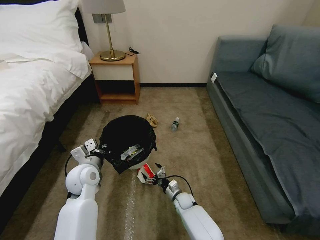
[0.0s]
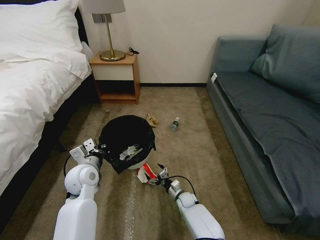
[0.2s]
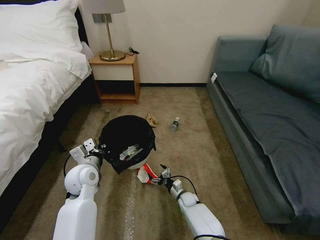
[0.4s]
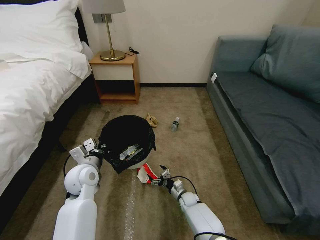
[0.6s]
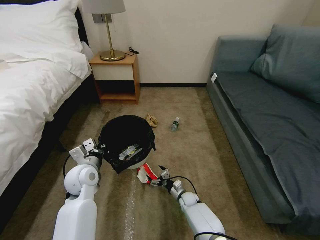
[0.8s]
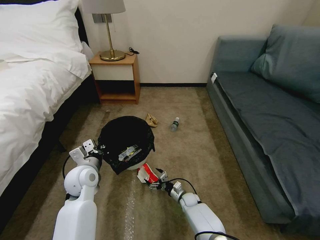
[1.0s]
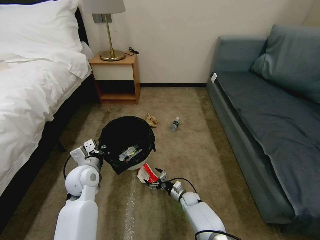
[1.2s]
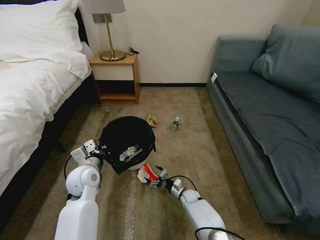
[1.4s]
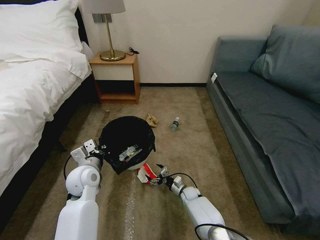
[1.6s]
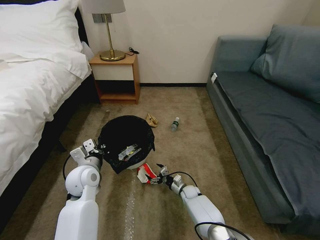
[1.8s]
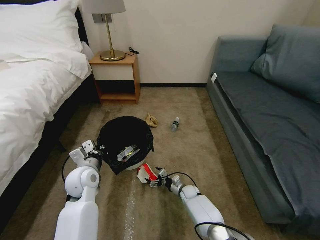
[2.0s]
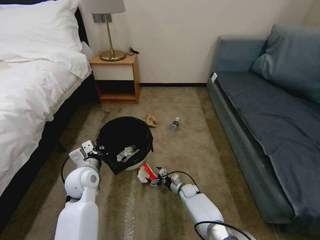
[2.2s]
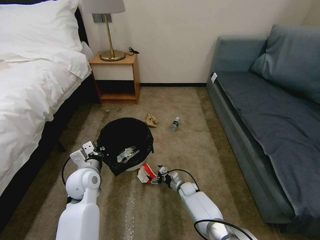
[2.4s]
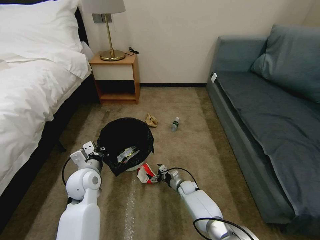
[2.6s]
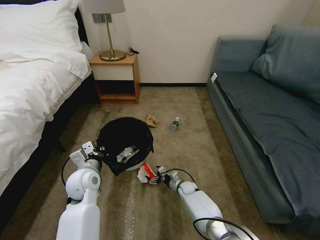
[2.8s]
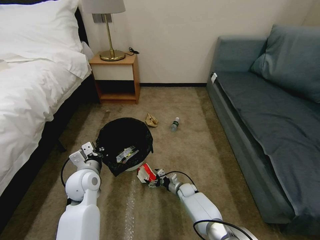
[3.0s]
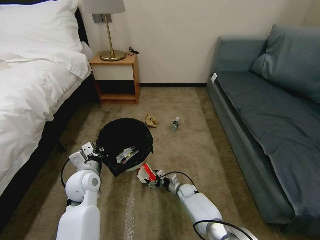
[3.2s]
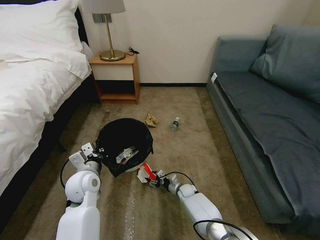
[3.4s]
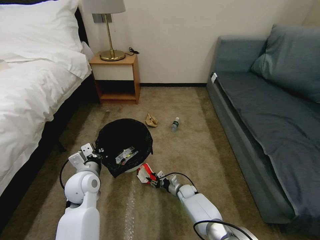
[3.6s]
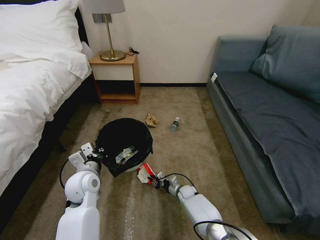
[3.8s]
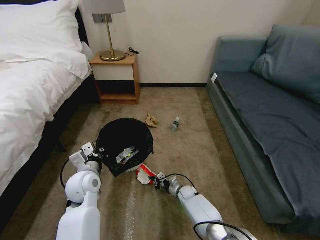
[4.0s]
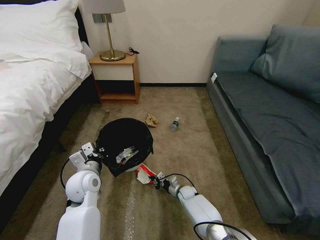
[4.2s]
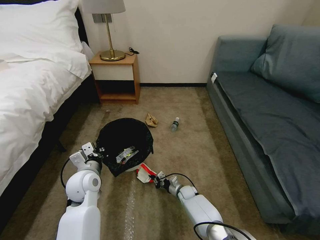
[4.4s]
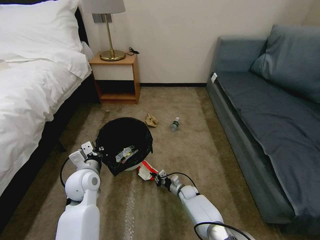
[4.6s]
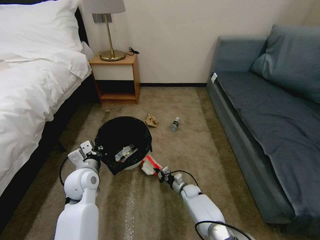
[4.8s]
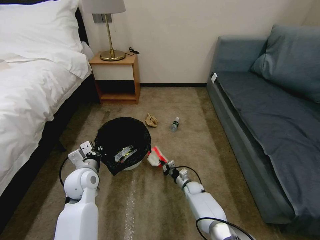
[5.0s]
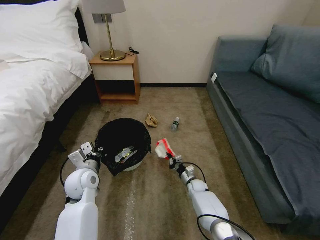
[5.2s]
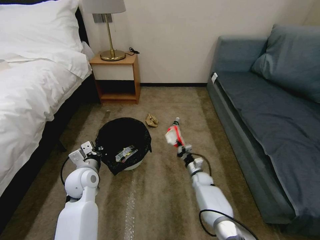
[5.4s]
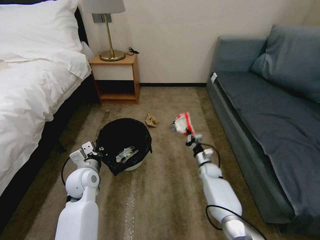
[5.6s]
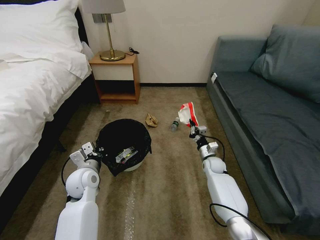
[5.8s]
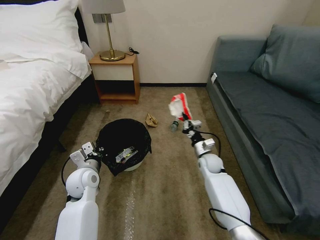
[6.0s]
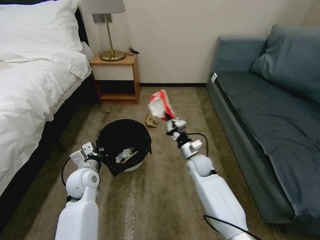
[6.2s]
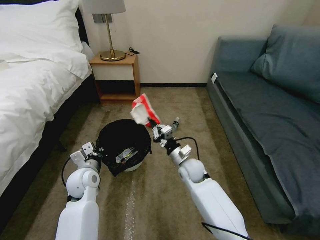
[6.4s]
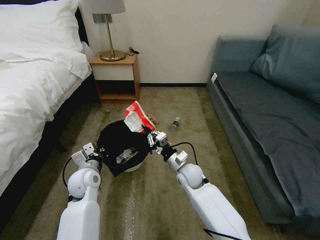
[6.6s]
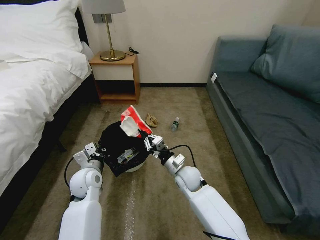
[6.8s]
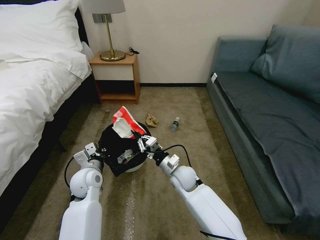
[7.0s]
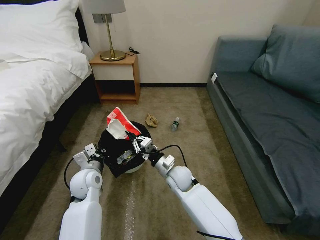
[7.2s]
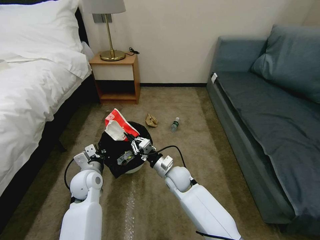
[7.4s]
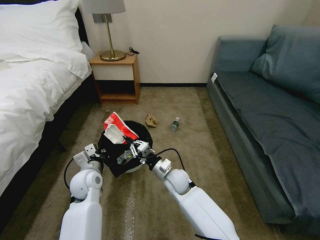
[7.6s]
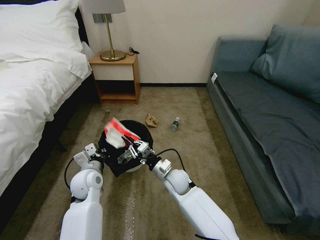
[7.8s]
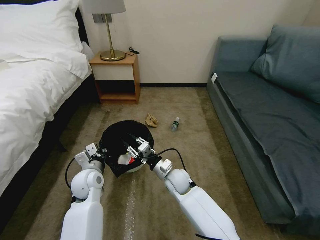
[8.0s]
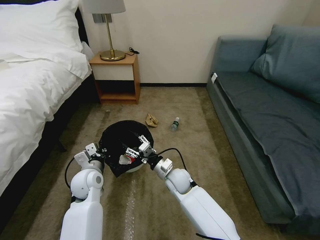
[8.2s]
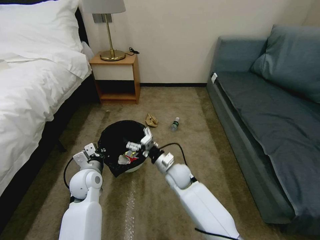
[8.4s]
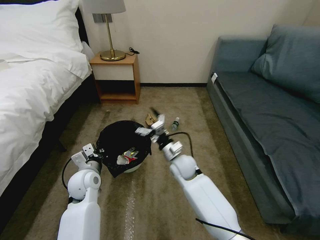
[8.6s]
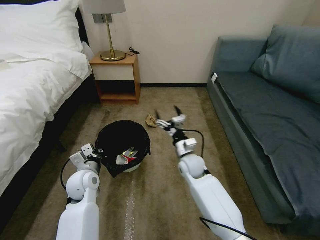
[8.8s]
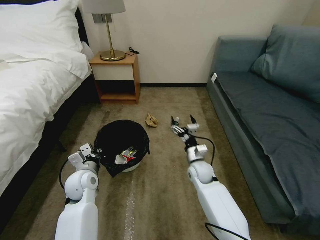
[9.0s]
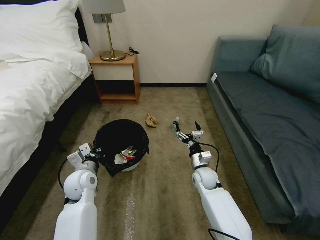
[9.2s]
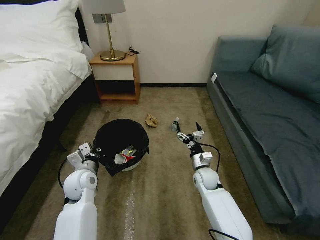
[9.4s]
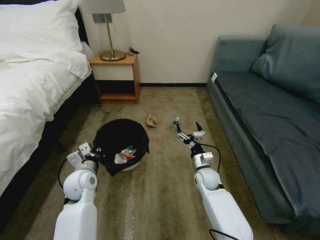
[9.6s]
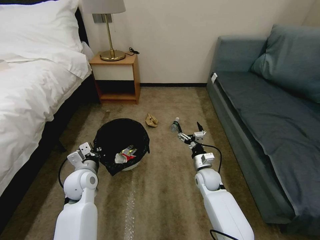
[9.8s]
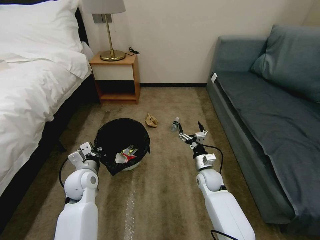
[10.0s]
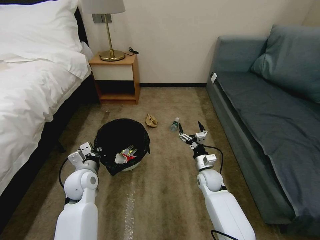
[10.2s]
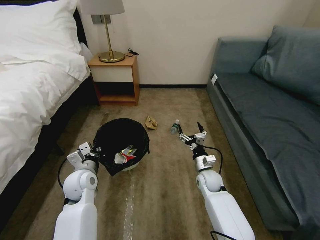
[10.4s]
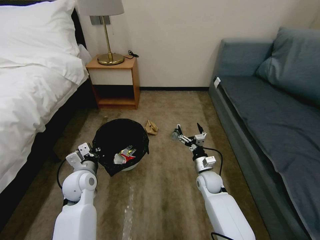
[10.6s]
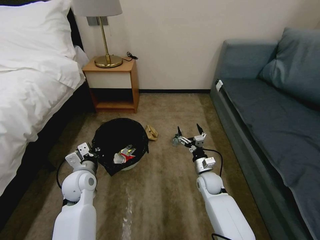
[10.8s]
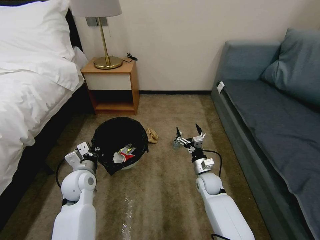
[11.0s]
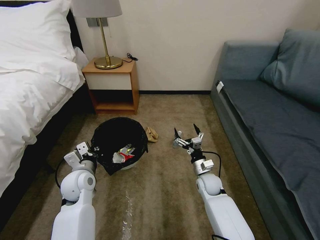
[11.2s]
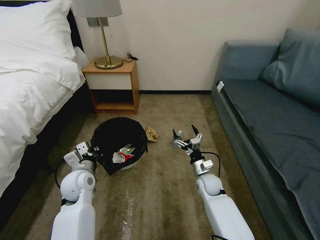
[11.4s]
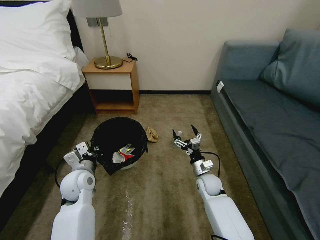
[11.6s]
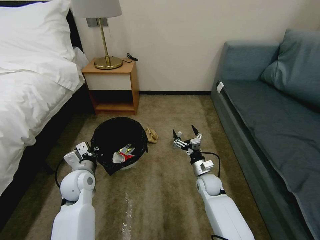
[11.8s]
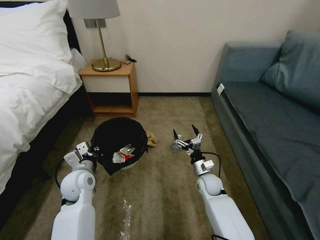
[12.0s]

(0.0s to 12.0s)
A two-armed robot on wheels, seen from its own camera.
Task of the whole recording: Pick up the trash bin, then pick up the garbage on the floor and place it into the trash bin.
0.0s - 1.6s: The right gripper shifts by approximately 5 cm.
1.6s - 3.0s: The grippers stay close to where they were, moving slightly.
3.0s - 4.4s: The right gripper closes.
4.4s - 6.0s: The right gripper moves upward, about 20 cm.
6.0s - 7.6s: The right gripper goes about 20 cm to the left and backward.
7.6s - 9.0s: The right gripper heads to the right, covering about 10 cm, and opens.
9.0s - 10.4s: The right gripper shifts by roughly 5 cm.

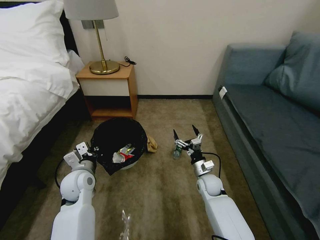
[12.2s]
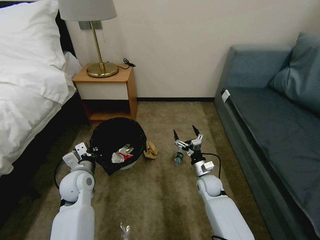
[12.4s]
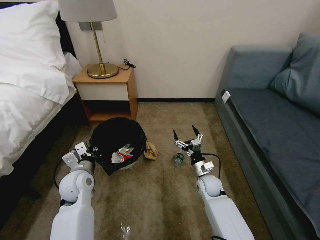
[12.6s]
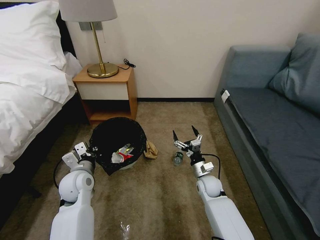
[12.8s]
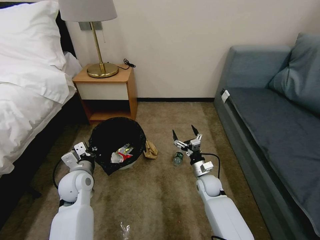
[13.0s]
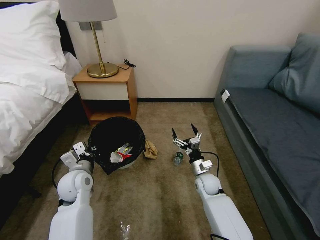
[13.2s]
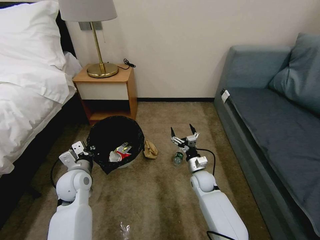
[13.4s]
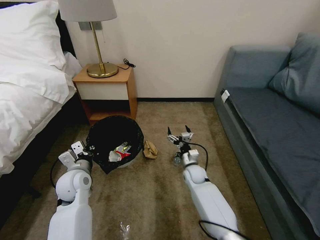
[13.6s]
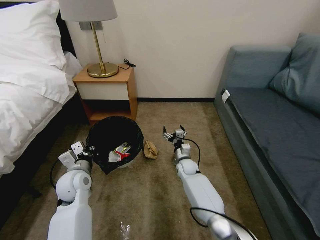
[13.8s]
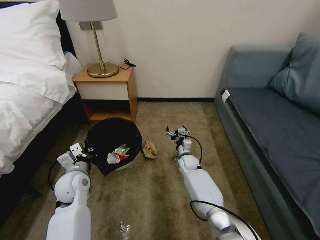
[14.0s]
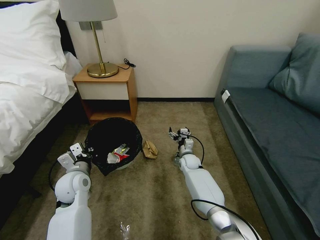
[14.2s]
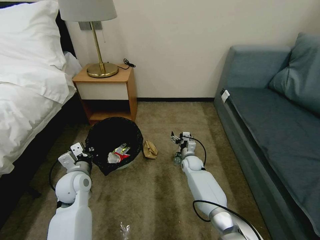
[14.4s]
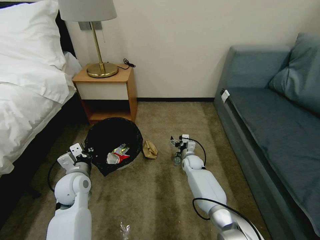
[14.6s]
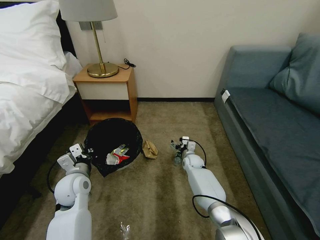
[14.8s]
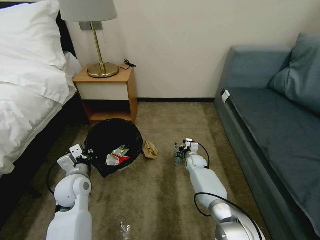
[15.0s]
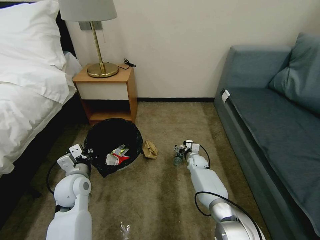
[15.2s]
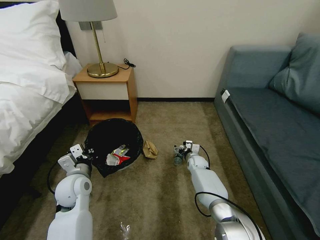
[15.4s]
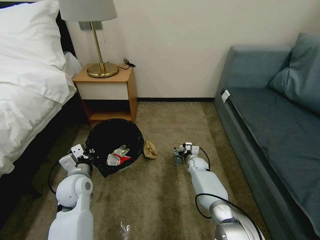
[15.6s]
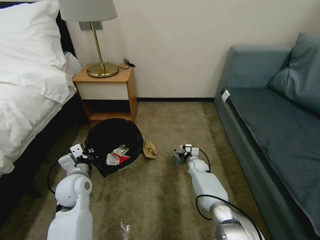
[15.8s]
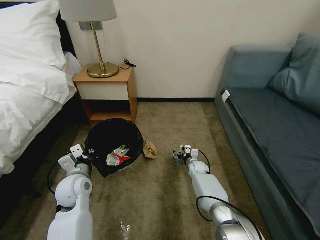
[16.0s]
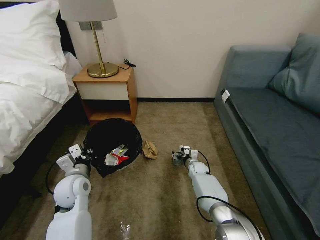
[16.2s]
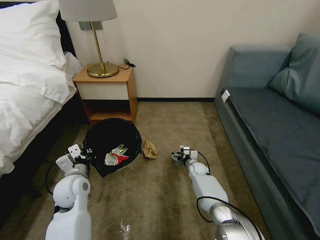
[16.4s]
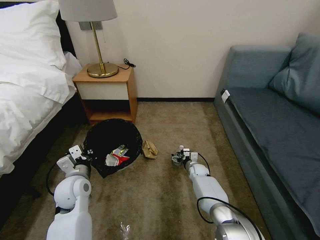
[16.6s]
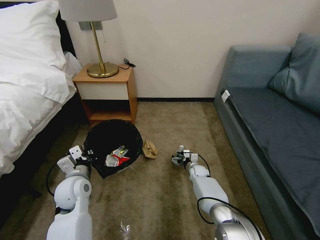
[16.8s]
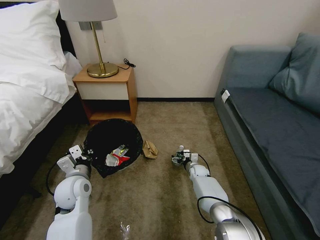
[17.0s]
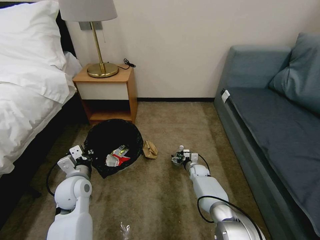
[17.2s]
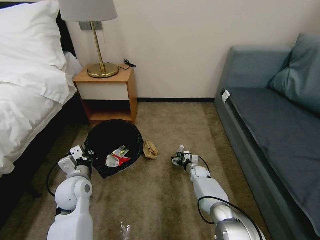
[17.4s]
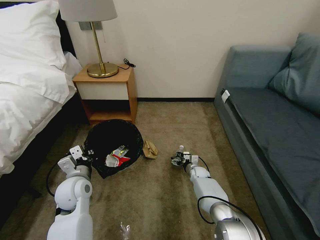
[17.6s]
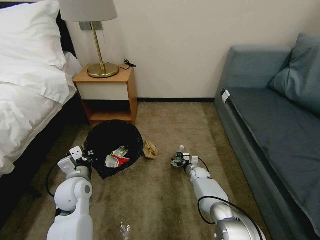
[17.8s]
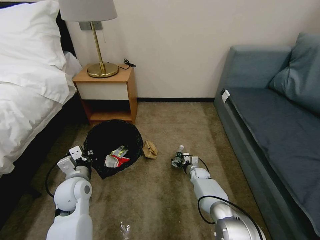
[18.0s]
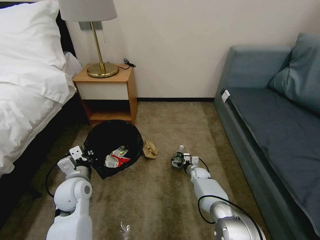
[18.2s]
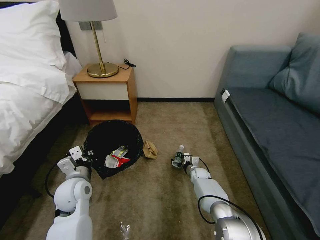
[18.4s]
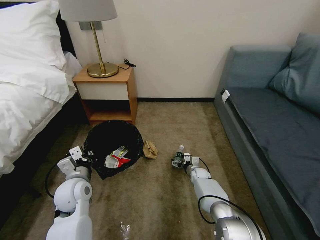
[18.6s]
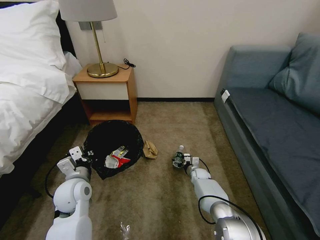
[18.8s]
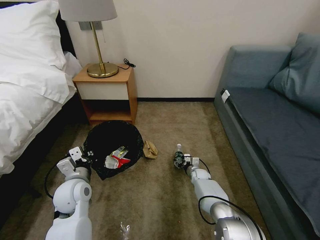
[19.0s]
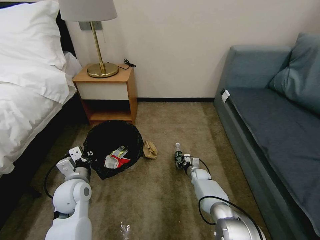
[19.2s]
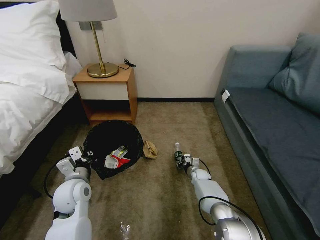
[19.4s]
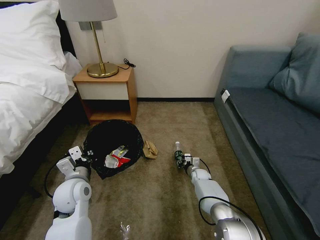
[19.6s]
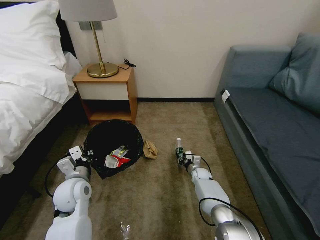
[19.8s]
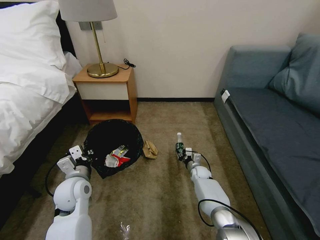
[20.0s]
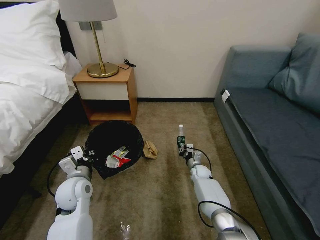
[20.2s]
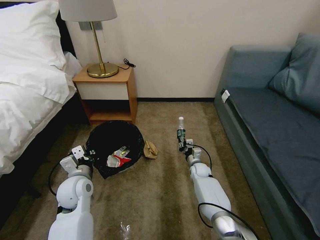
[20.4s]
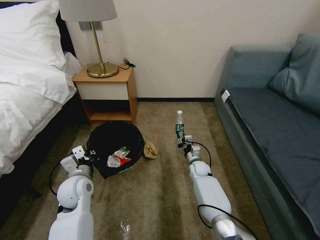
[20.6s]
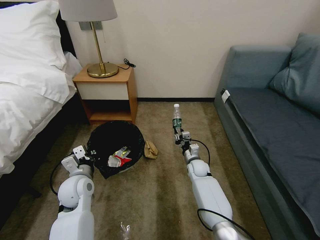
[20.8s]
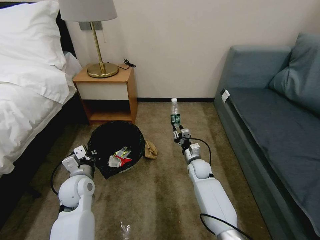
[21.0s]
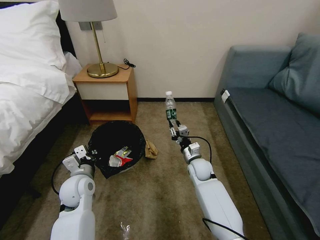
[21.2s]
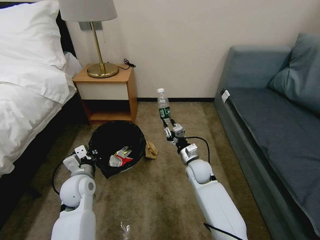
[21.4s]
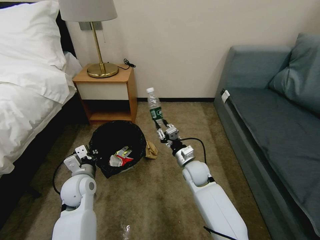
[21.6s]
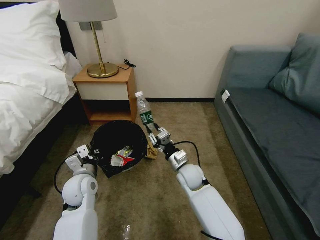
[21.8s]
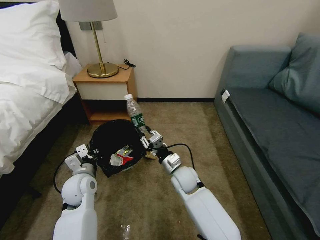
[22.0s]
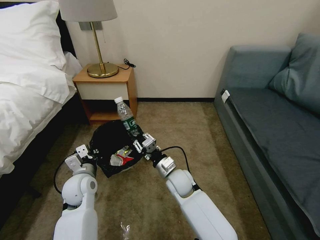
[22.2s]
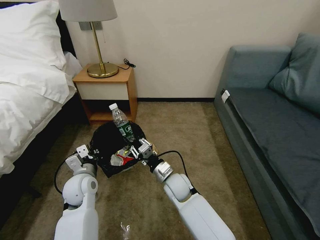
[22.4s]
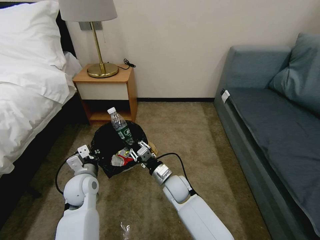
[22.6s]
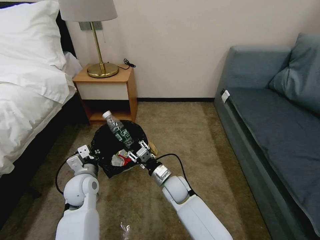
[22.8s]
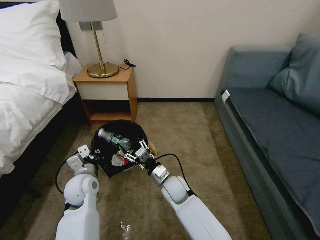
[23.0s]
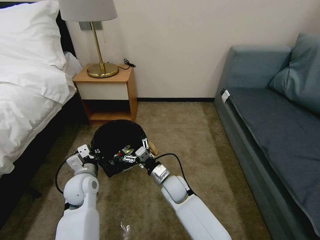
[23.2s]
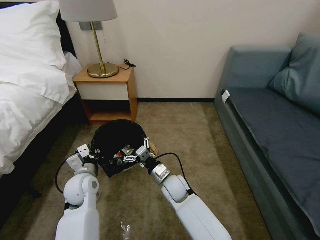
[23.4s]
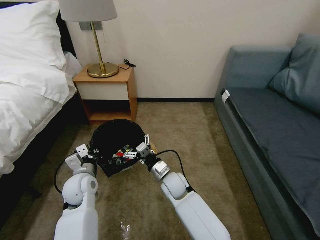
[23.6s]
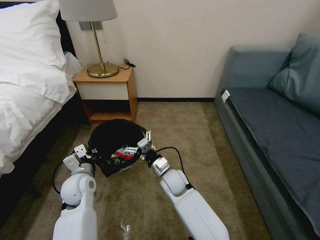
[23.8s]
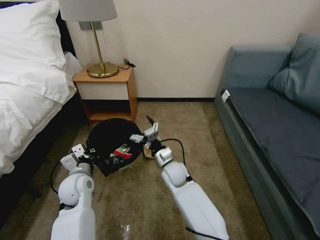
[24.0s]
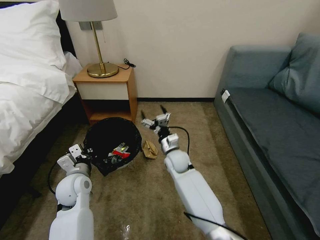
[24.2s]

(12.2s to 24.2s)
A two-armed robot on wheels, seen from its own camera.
Task of the whole recording: Pick up the trash bin, then pick up the garbage on the floor and place it into the trash bin.
12.2s - 13.8s: The right gripper moves forward and to the left, some 10 cm.
13.8s - 15.2s: The right gripper moves to the right, about 5 cm.
15.2s - 16.6s: The grippers make only small movements.
16.6s - 18.2s: There are only small adjustments of the grippers.
18.2s - 19.8s: The right gripper closes its fingers.
19.8s - 21.2s: The right gripper is displaced upward by about 15 cm.
21.2s - 22.6s: The right gripper is displaced to the left and backward by some 15 cm.
22.6s - 24.2s: The right gripper travels forward by some 10 cm, and opens its fingers.
